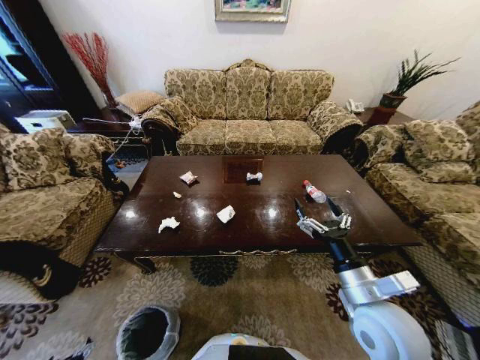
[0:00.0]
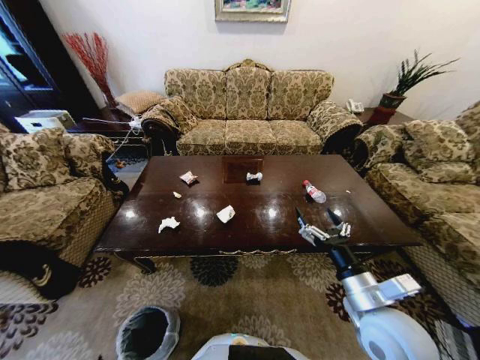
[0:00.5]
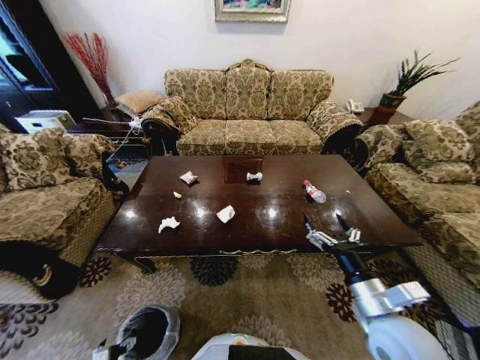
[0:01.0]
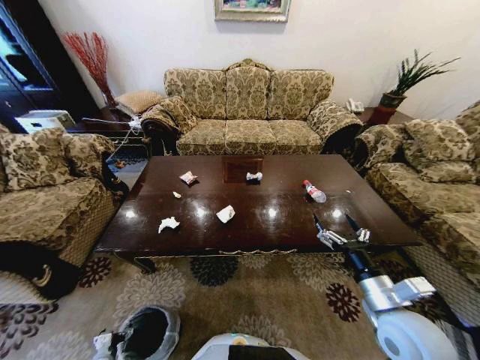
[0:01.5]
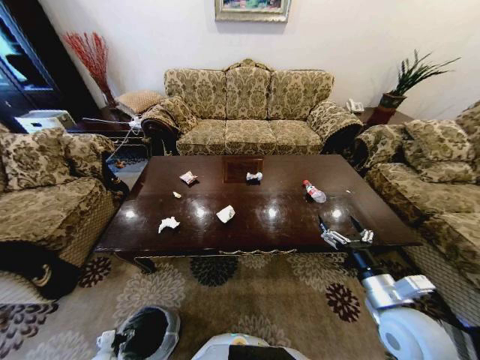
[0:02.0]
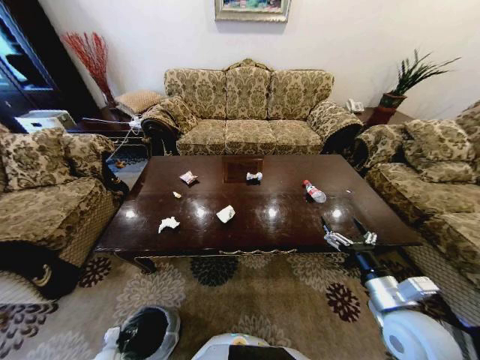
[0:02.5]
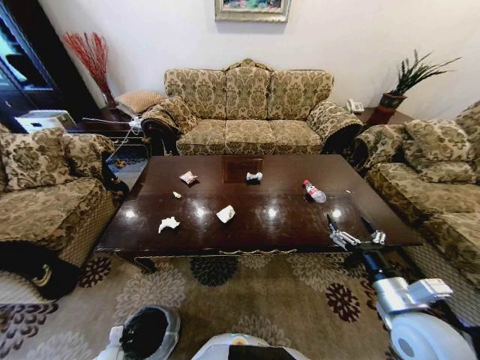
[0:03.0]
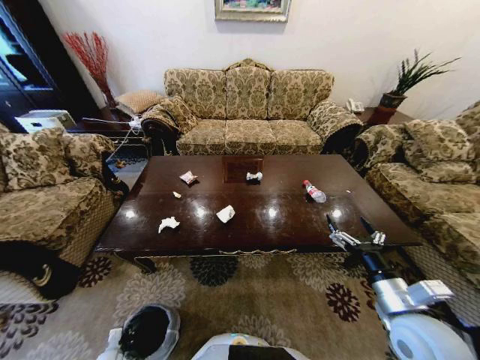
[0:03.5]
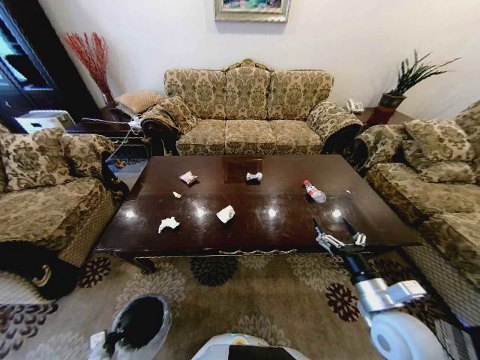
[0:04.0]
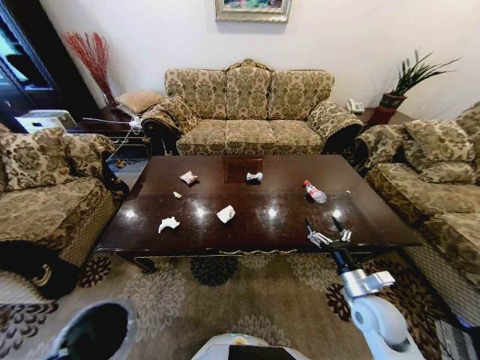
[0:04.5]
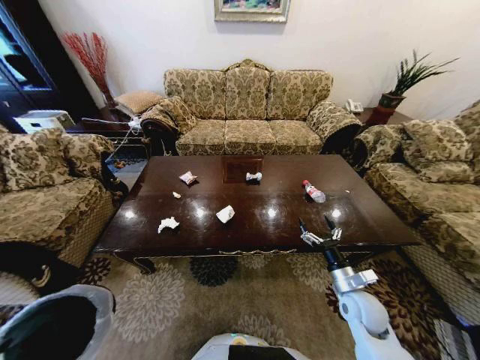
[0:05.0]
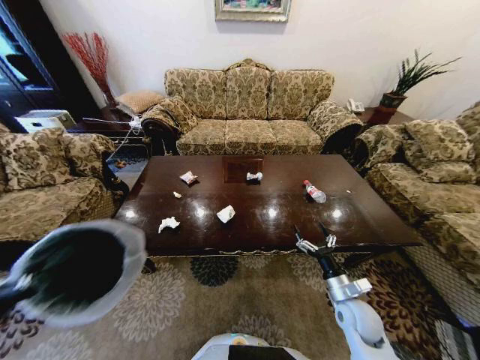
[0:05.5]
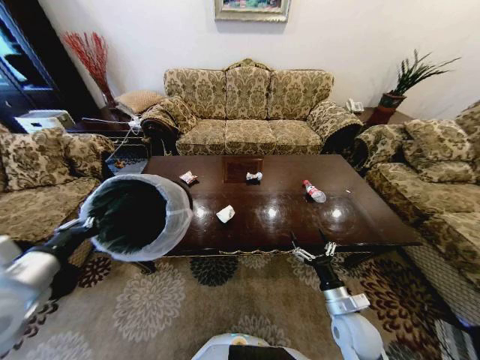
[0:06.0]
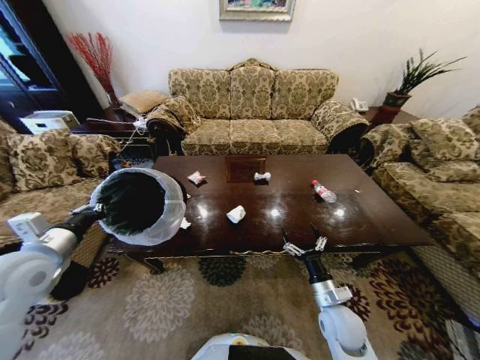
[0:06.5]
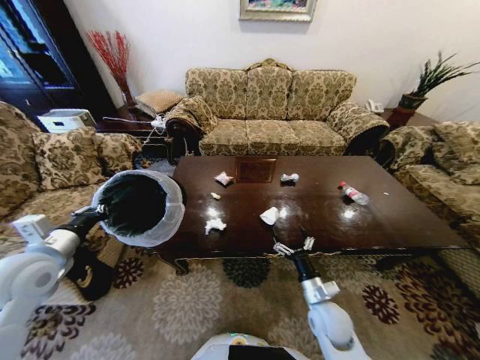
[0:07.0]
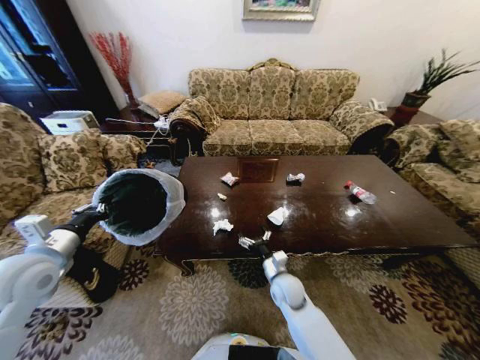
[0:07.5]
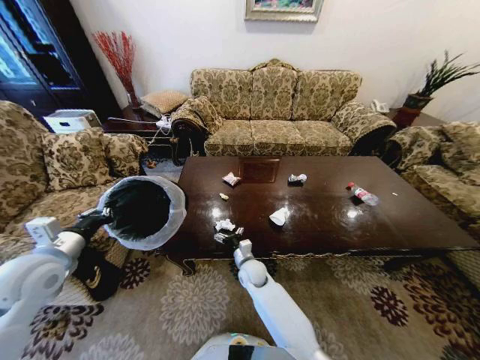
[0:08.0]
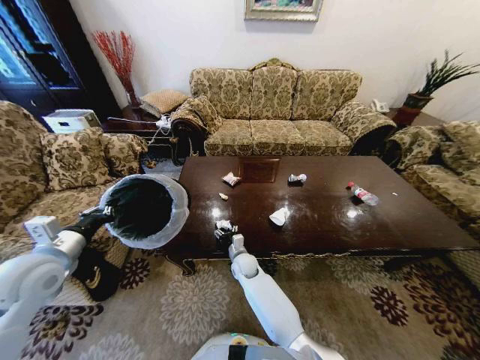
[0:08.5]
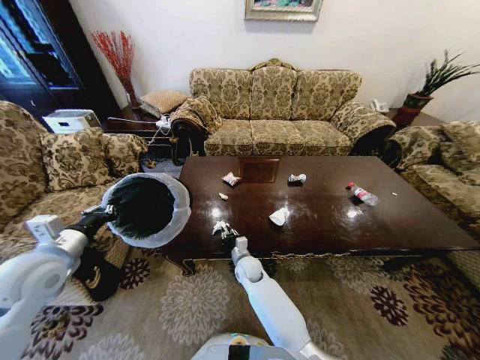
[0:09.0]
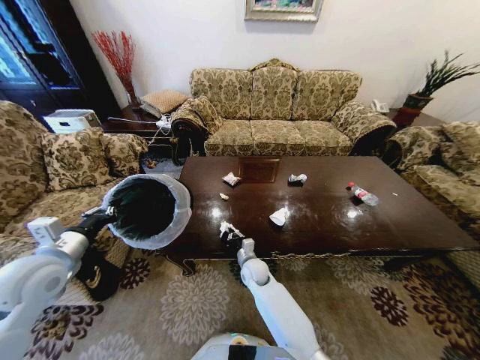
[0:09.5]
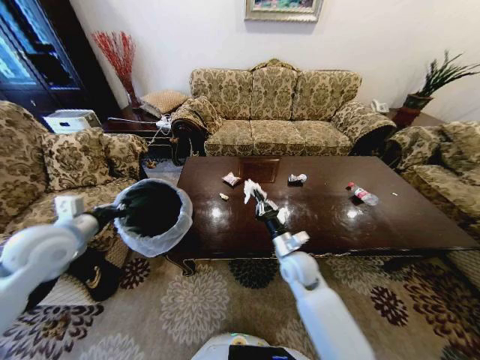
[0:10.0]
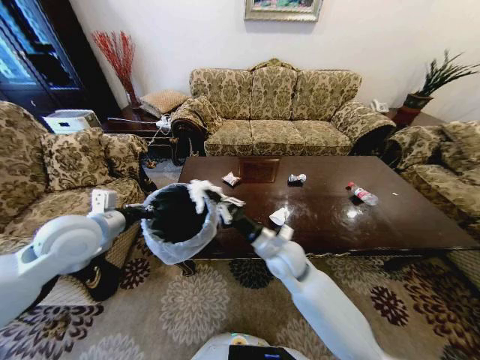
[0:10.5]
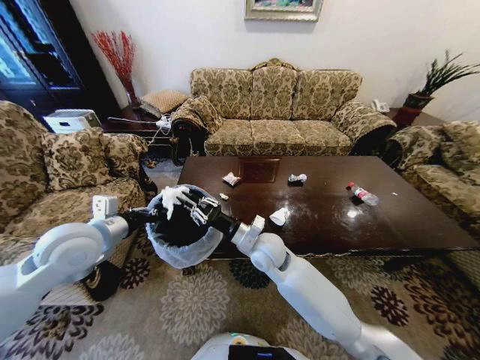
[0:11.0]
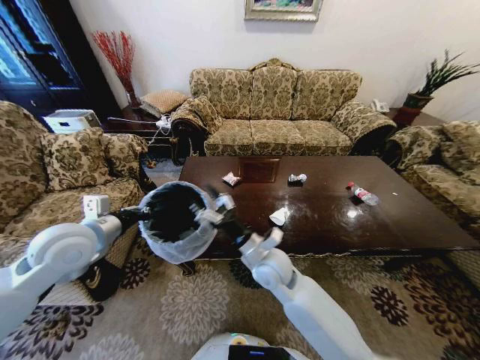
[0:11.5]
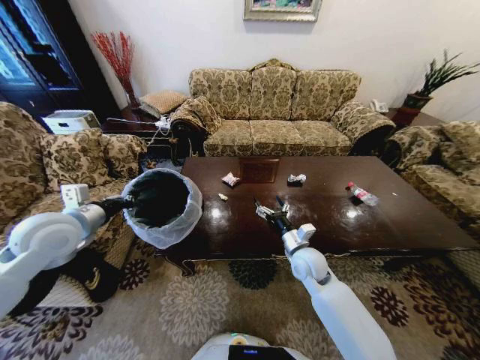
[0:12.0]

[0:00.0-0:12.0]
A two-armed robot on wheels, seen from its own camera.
Task of the whole recording: Move to the front of the table and place the trash on the table into the trash bin.
0:00.0 to 0:02.0: The left gripper is displaced downward and forward by approximately 15 cm, while the right gripper heads to the right, covering some 5 cm.
0:02.0 to 0:04.0: The left gripper closes up.
0:04.0 to 0:06.0: The left gripper is displaced upward by approximately 50 cm. The right gripper moves downward, approximately 10 cm.
0:06.0 to 0:08.0: The right gripper shifts about 30 cm to the left and forward, while the left gripper goes roughly 5 cm forward.
0:08.0 to 0:10.0: The right gripper heads to the right and upward, covering about 15 cm, and closes up. Meanwhile the left gripper shifts by about 5 cm.
0:10.0 to 0:12.0: The right gripper goes to the left and returns, approximately 10 cm each way, and opens.

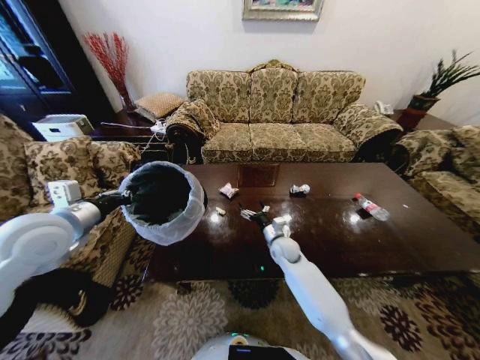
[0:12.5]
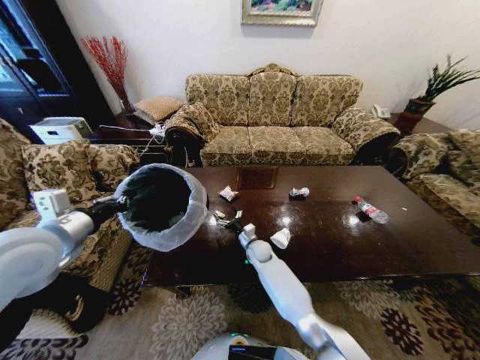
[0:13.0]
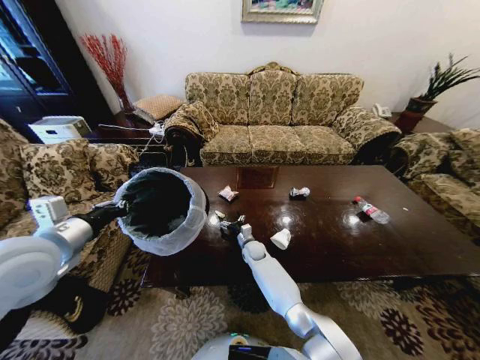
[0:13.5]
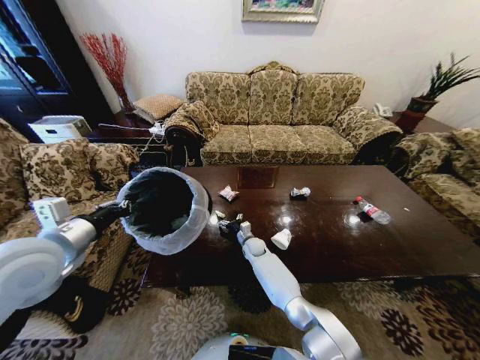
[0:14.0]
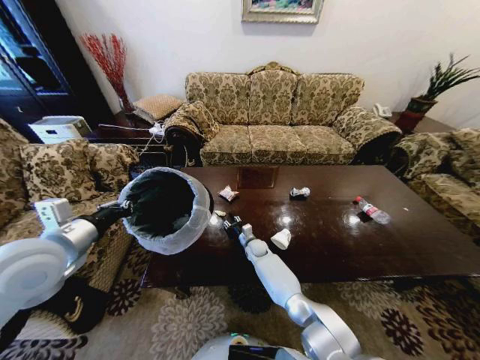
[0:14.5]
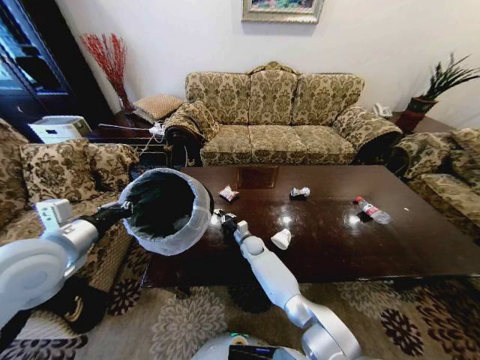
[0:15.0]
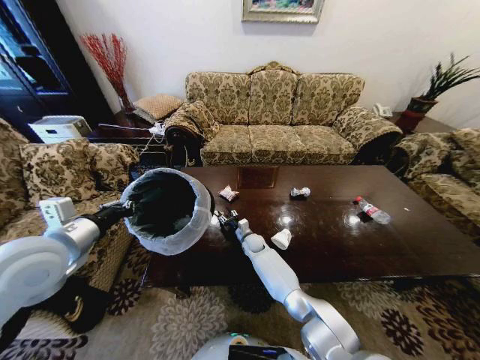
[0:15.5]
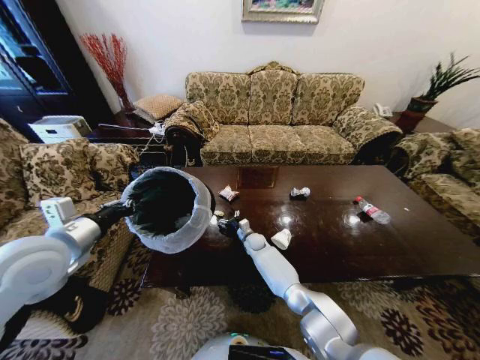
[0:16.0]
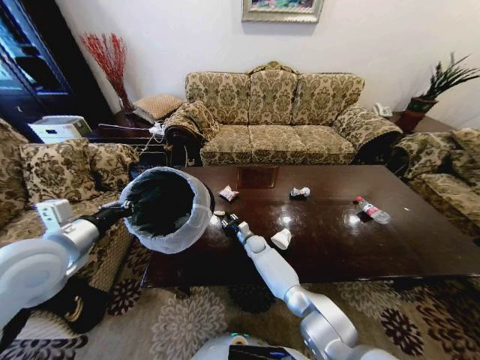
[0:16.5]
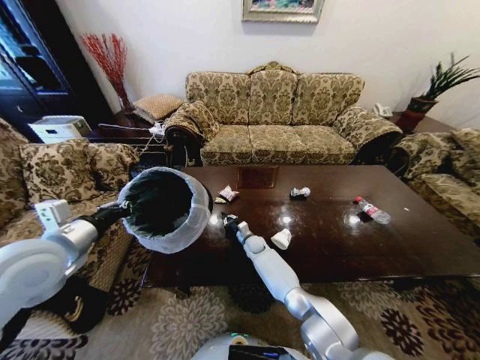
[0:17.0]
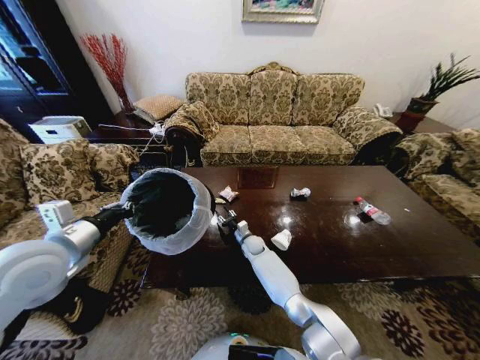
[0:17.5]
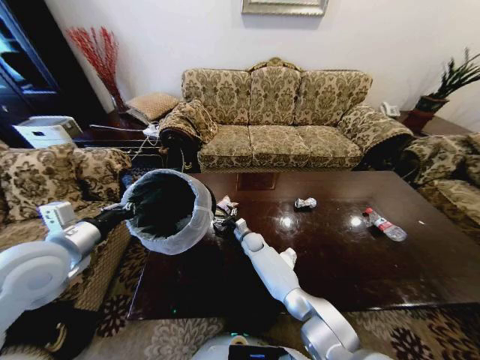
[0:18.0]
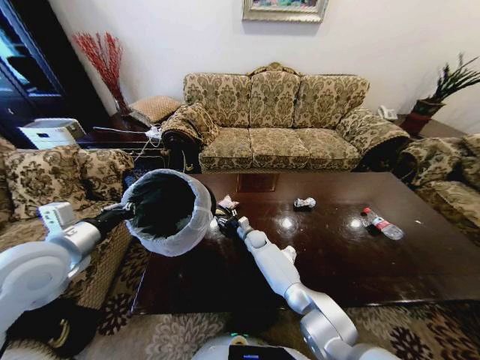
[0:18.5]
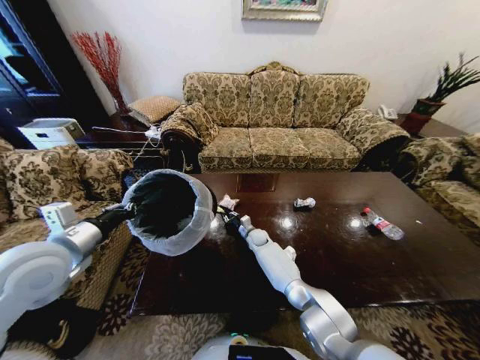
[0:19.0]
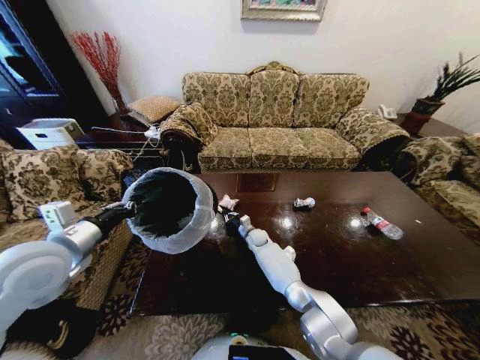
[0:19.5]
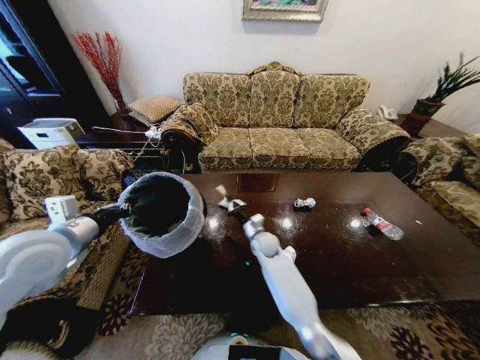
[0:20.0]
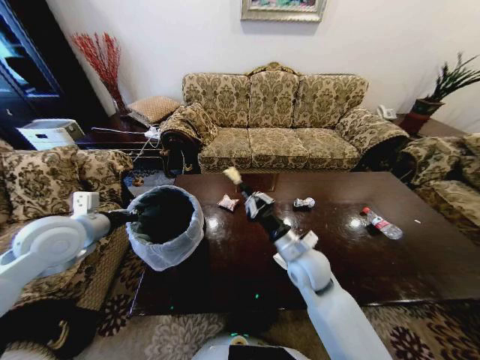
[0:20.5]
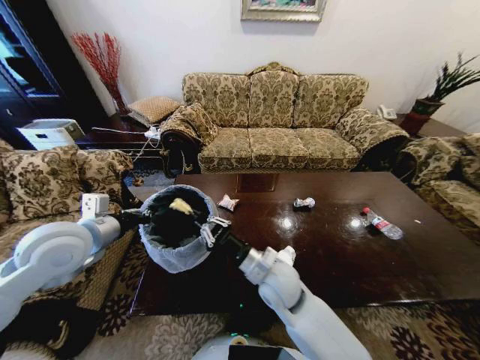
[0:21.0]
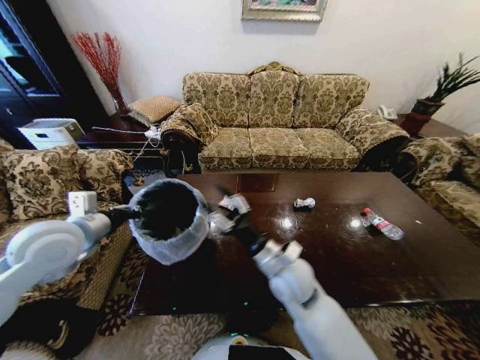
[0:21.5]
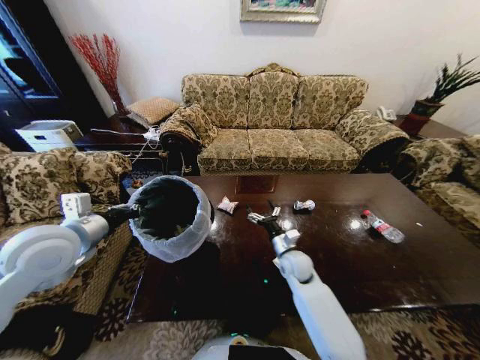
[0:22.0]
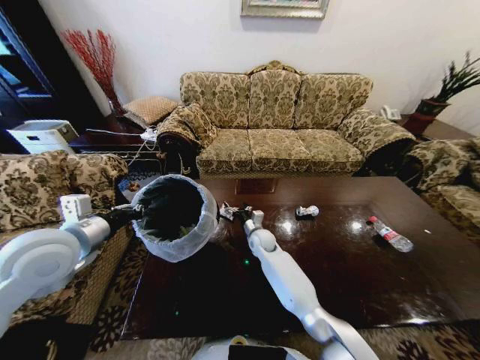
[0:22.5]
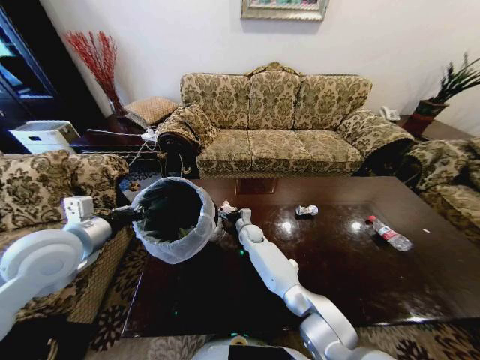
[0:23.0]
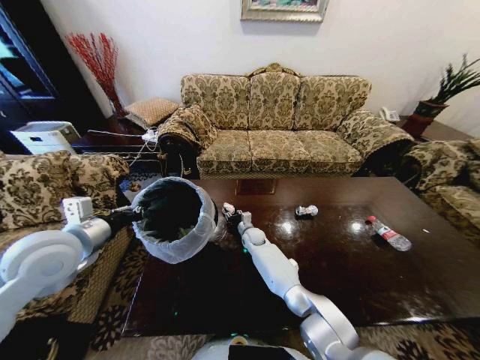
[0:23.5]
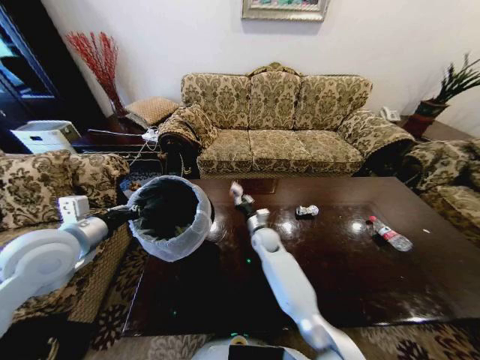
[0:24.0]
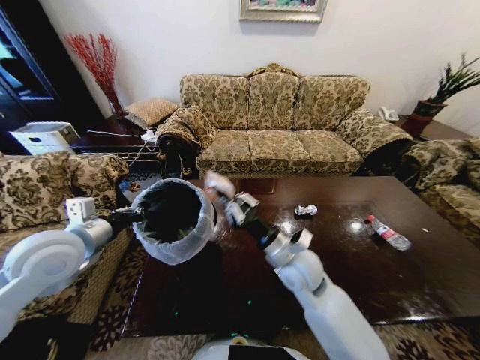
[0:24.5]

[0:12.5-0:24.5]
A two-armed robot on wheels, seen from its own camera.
Task of the whole recording: Move to the front of the table and place the trash on the table into the trash bin.
0:12.5 to 0:14.5: The left gripper moves approximately 5 cm. The right gripper heads downward, to the left and forward, covering approximately 15 cm, and closes its fingers.
0:14.5 to 0:16.5: The right gripper opens, then closes again.
0:16.5 to 0:18.5: The right gripper opens.
0:18.5 to 0:20.5: The right gripper heads upward, backward and to the right, covering roughly 30 cm, and closes its fingers, while the left gripper travels forward by approximately 5 cm.
0:20.5 to 0:22.5: The right gripper shifts approximately 20 cm forward, downward and to the left, and opens its fingers.
0:22.5 to 0:24.5: The right gripper moves backward and upward, about 20 cm, and closes.

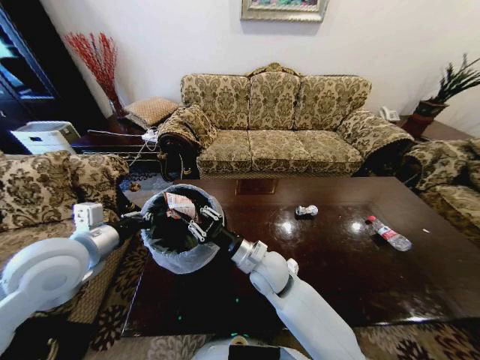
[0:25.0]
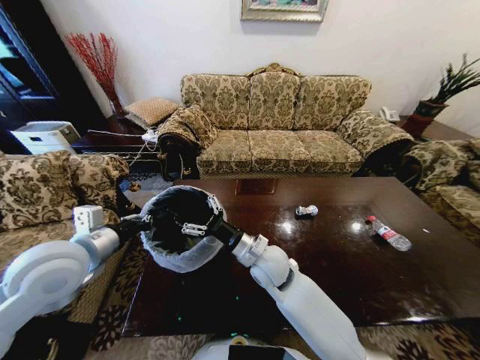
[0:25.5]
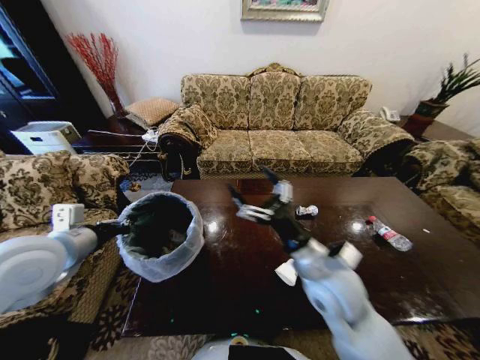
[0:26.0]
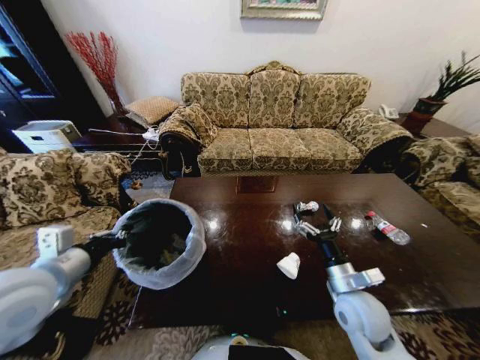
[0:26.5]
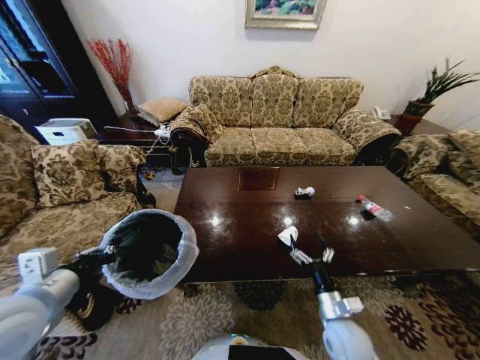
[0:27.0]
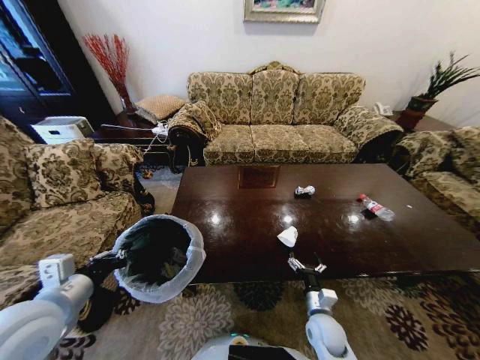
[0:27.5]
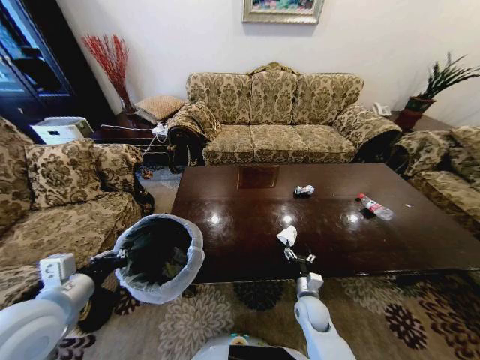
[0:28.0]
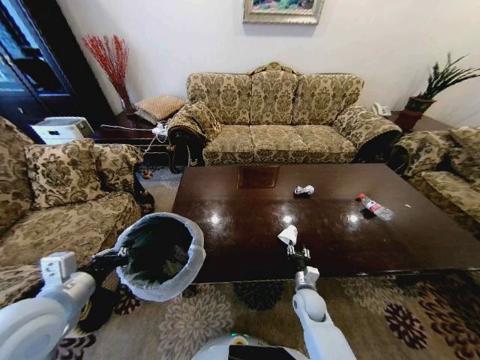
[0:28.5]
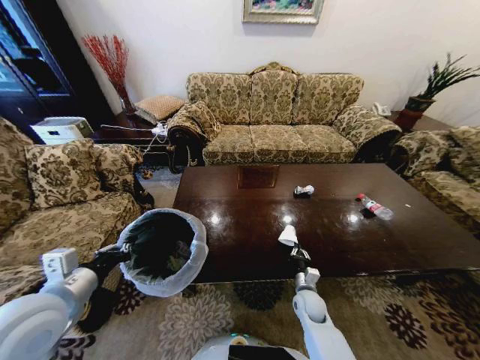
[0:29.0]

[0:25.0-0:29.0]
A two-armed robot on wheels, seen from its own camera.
Task of the whole recording: Move to the front of the table and place the trash on the table into the trash bin.
0:25.0 to 0:27.0: The right gripper goes about 25 cm to the right, downward and backward, and opens its fingers. Meanwhile the left gripper heads backward, covering some 10 cm.
0:27.0 to 0:29.0: The right gripper moves downward and forward, about 15 cm, and closes its fingers.
